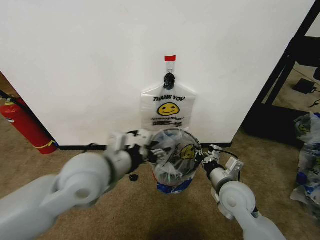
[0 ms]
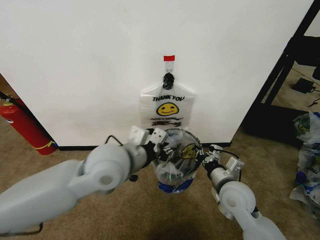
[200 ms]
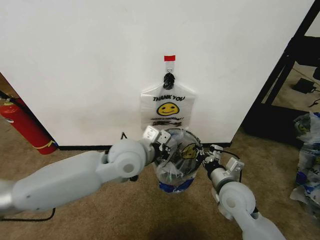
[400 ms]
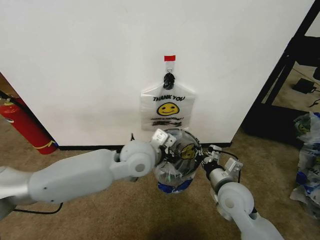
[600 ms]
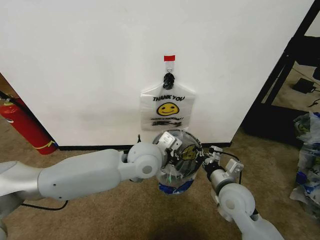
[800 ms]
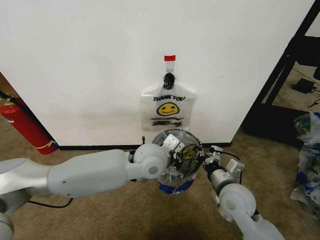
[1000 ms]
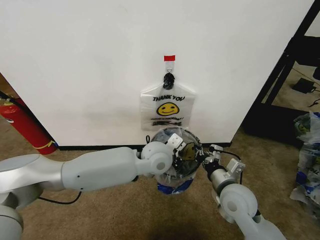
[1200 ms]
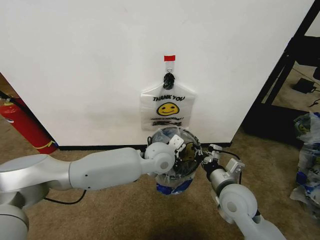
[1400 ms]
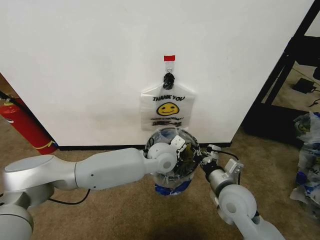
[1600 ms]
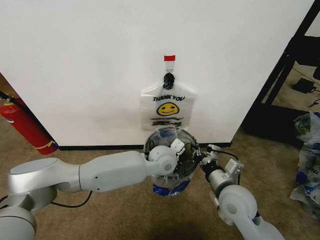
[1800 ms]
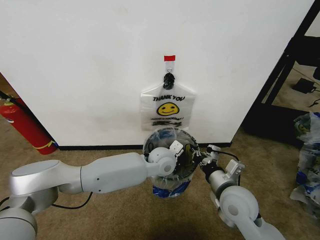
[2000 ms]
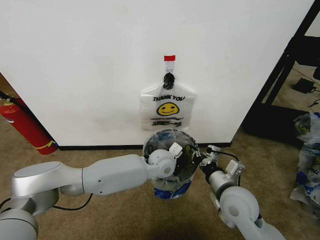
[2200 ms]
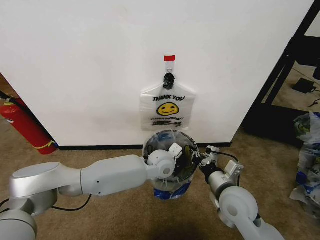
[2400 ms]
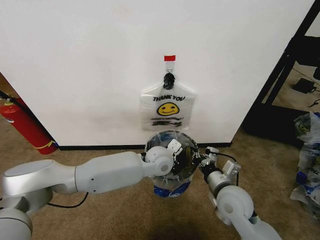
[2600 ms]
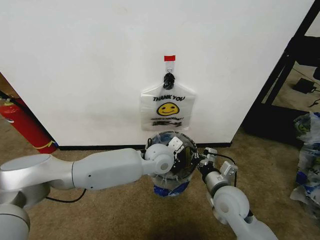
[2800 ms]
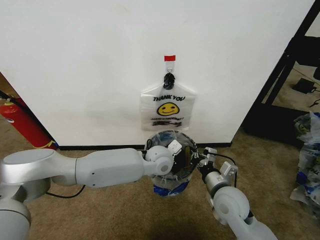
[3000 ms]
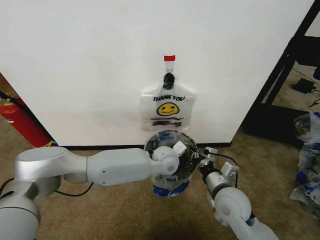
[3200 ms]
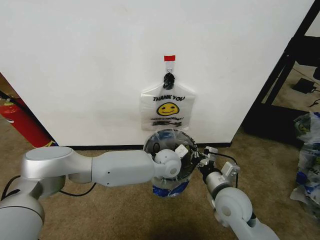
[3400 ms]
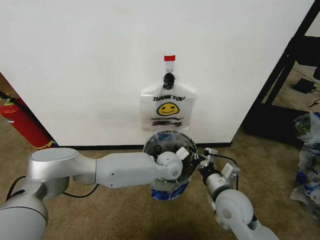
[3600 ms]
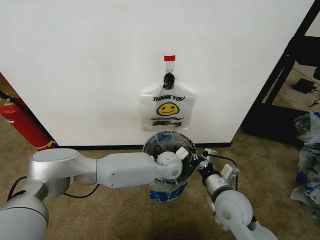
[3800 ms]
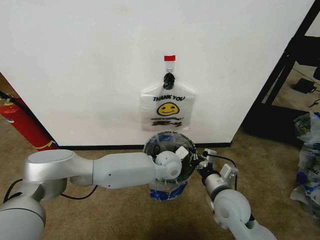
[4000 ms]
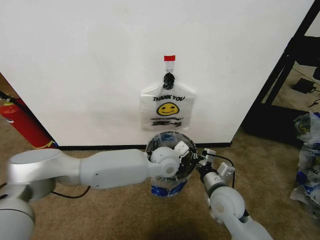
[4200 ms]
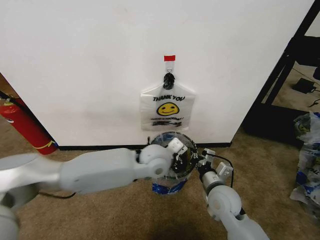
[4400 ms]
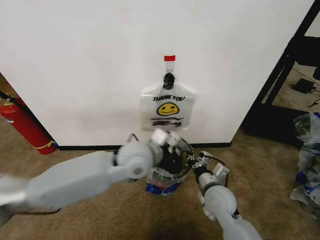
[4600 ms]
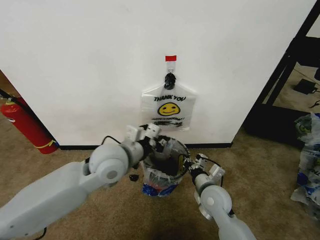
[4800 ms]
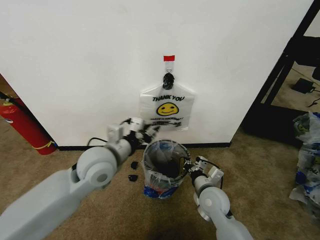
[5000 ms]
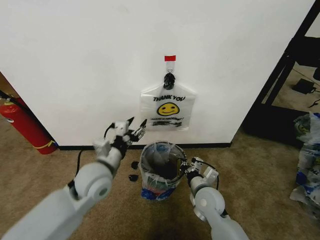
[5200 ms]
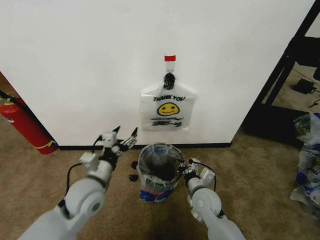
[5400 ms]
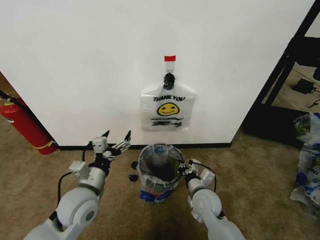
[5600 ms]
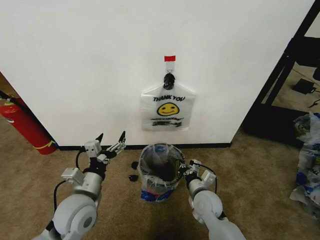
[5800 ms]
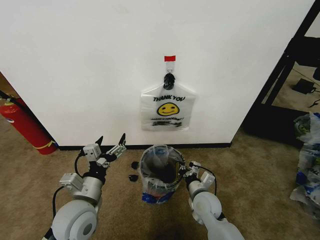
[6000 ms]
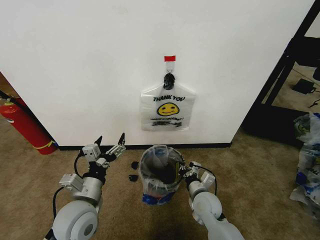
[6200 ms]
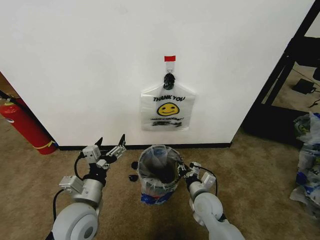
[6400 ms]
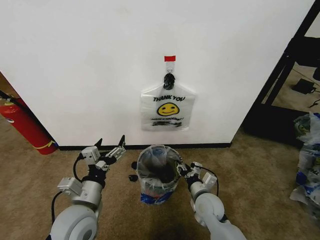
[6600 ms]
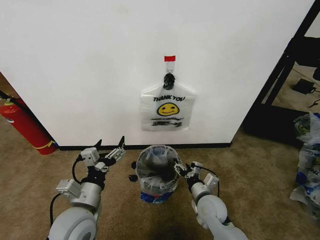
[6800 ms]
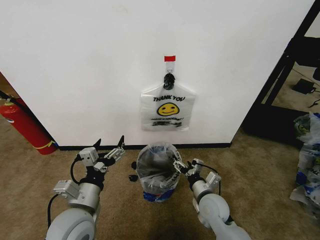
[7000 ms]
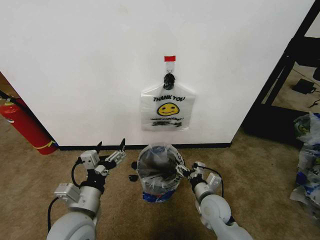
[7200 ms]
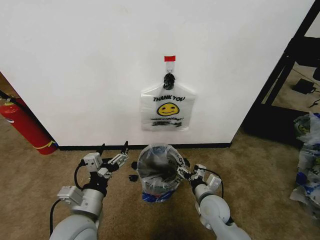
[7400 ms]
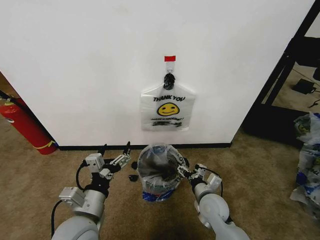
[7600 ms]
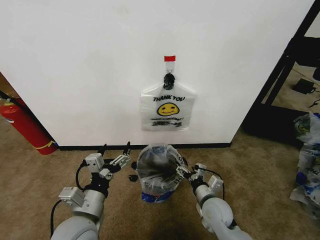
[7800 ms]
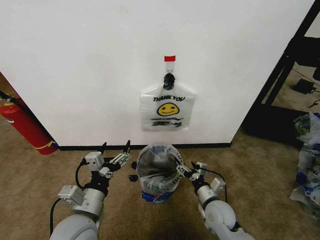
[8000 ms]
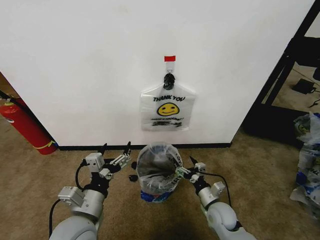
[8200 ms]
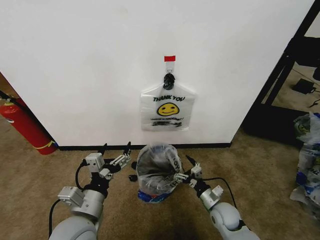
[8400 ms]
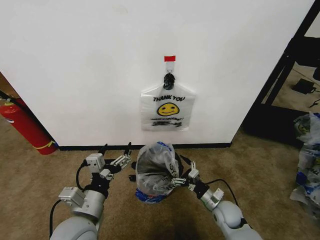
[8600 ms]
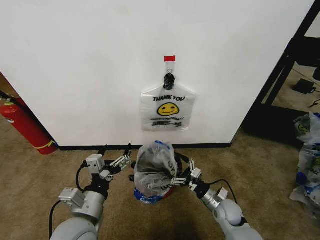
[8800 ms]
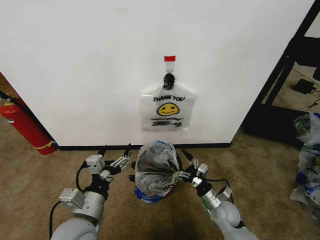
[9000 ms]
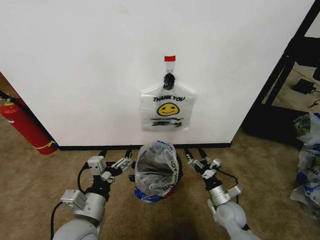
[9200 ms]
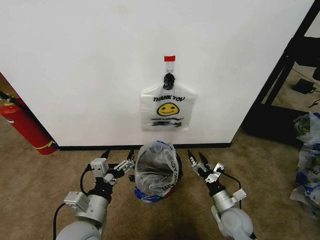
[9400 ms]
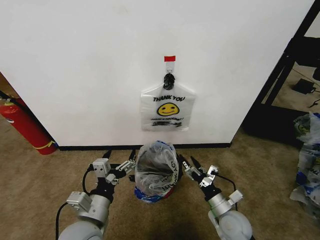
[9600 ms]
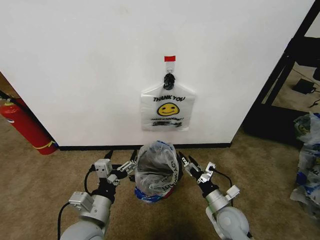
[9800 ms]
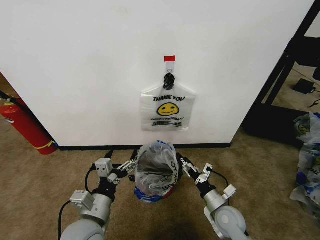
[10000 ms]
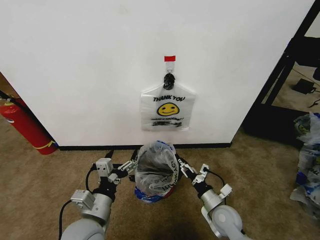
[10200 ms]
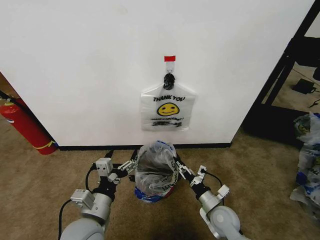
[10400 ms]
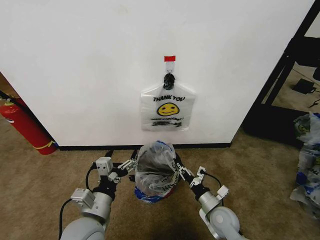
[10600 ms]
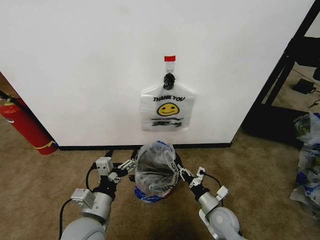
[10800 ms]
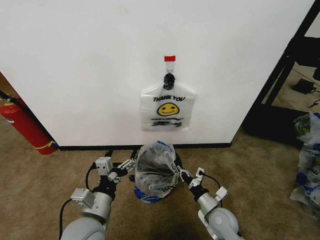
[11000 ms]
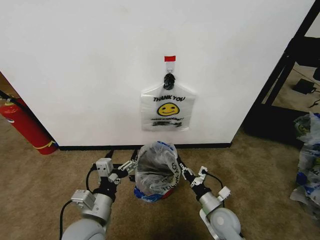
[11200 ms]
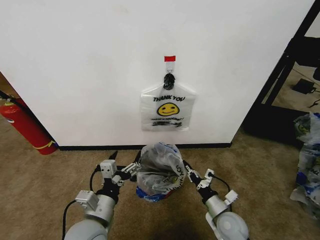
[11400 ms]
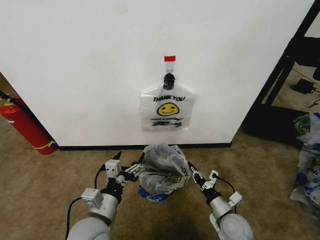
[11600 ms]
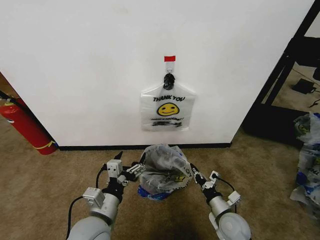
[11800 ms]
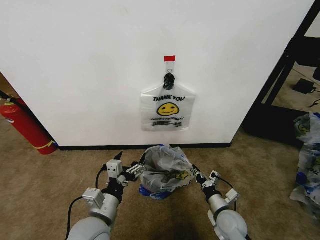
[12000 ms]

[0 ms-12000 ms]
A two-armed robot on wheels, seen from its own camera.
Task of the whole recording: Pick up the garbage bag from the wall and place it over the trash bin.
0 ms to 1600 ms: The left gripper heads to the right, forward and downward, covering about 25 cm, and closes its fingers.
1600 ms to 3000 ms: The grippers stay close to where they were, moving slightly.
3000 ms to 4400 ms: The left gripper heads upward, covering approximately 5 cm.
4400 ms to 6000 ms: The left gripper goes some 25 cm to the left and backward, and opens up. Meanwhile the right gripper heads downward, covering approximately 10 cm.
6000 ms to 7600 ms: The right gripper opens up.
7600 ms to 9000 ms: The right gripper shifts roughly 10 cm downward and to the right.
9000 ms to 10400 ms: The right gripper closes its fingers.
10400 ms to 12000 ms: The right gripper closes up.

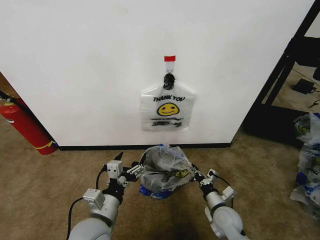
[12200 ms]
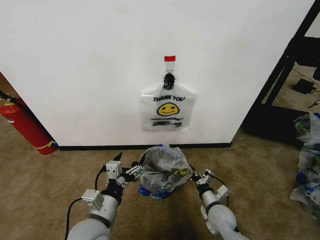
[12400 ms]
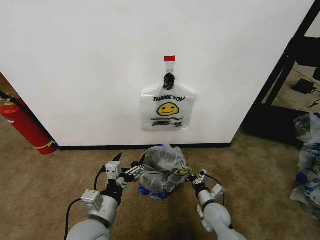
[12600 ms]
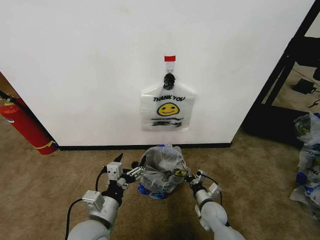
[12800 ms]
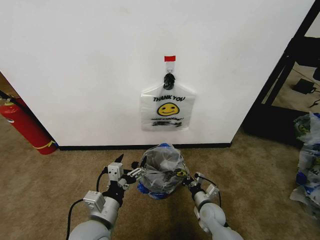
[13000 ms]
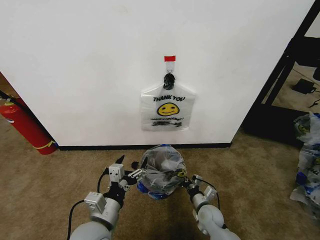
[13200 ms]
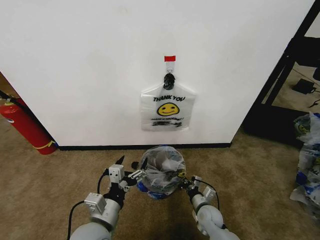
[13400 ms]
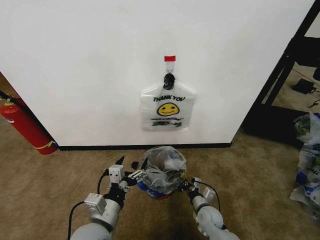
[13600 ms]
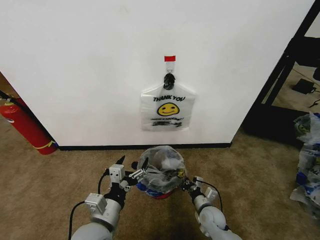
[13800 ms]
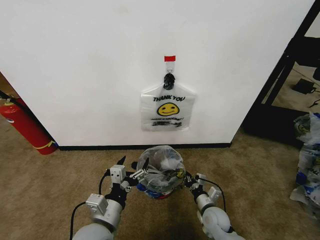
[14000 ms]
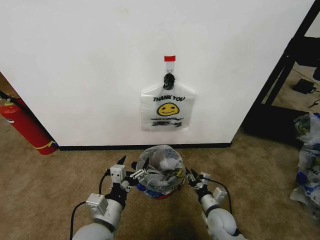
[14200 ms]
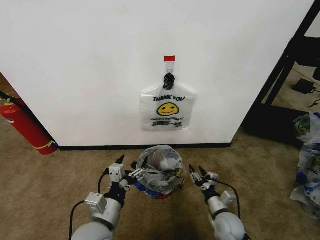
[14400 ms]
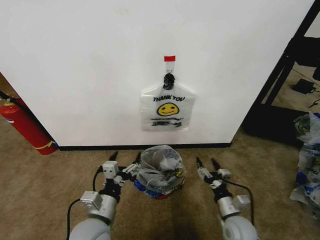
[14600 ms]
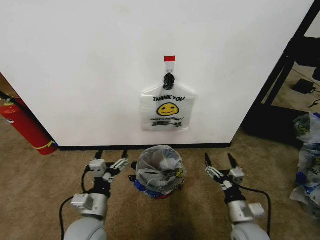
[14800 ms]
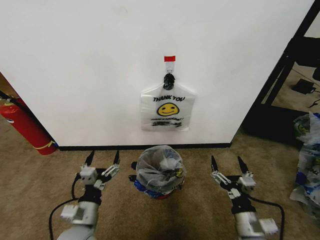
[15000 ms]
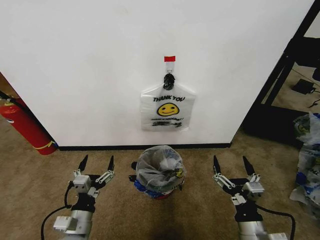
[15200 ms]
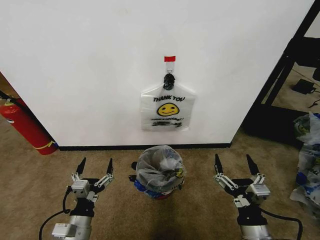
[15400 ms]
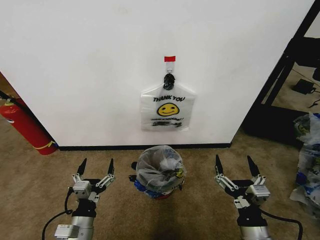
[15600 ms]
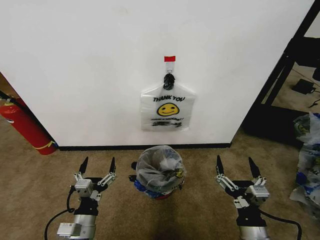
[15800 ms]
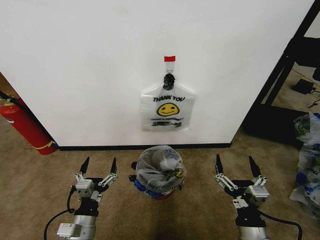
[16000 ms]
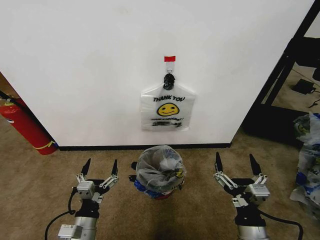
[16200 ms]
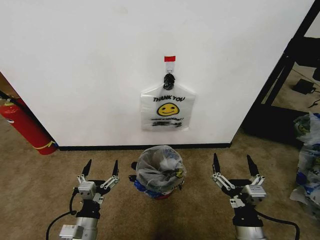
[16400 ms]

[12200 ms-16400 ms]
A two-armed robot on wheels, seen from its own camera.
Task of the whole recording: Pick up the garbage bag from the wall and place it over the trash bin.
12200 ms to 13600 ms: The right gripper heads downward, covering some 5 cm.
13600 ms to 15000 ms: The right gripper moves upward and backward, approximately 20 cm, and opens. The left gripper shifts roughly 10 cm to the left and downward.
15000 ms to 16400 ms: The right gripper ends up some 5 cm from where it was.
